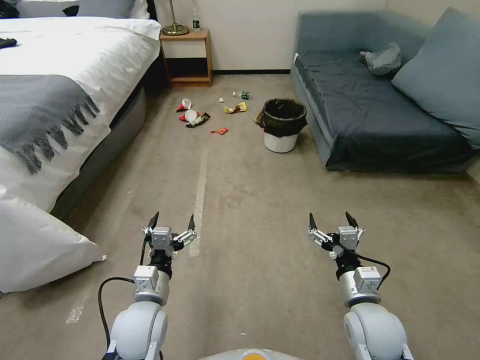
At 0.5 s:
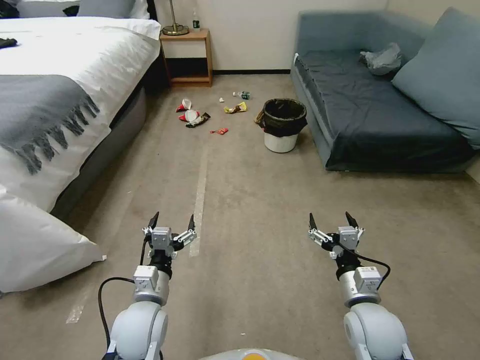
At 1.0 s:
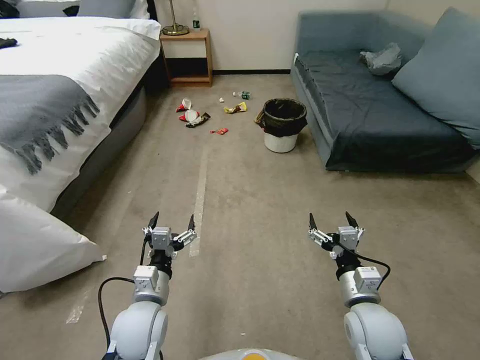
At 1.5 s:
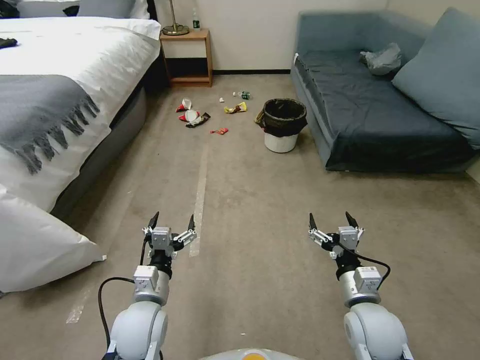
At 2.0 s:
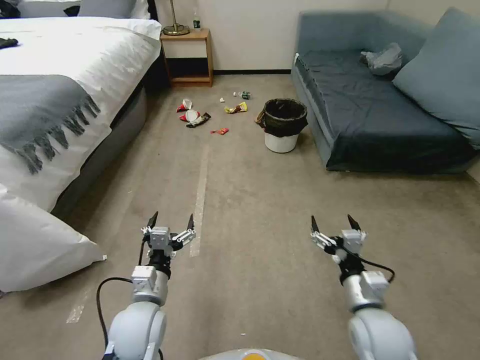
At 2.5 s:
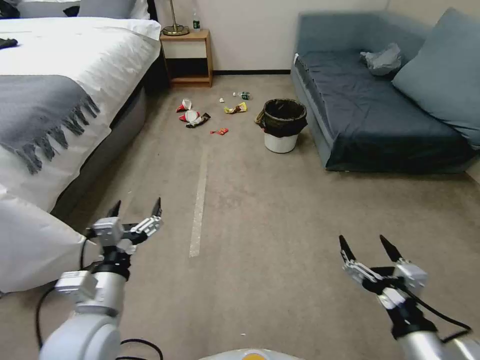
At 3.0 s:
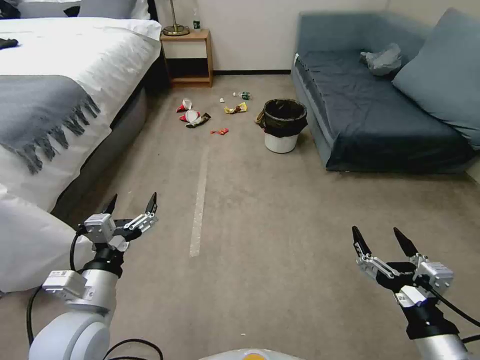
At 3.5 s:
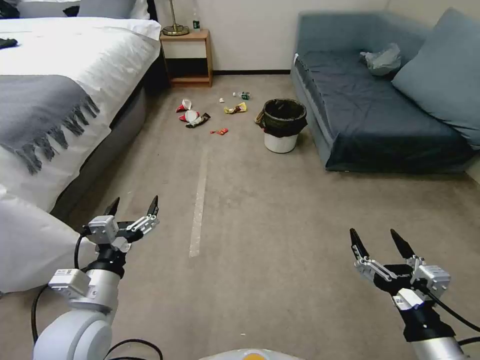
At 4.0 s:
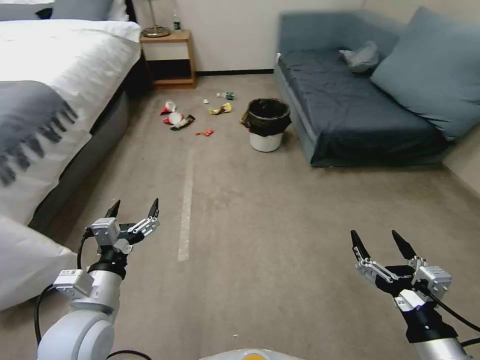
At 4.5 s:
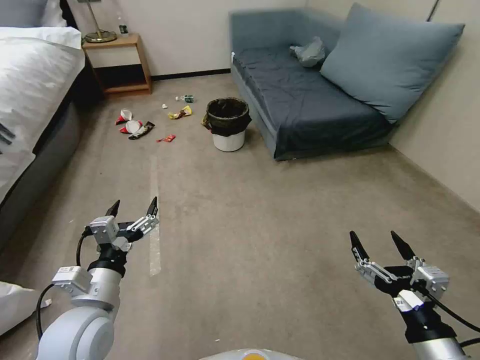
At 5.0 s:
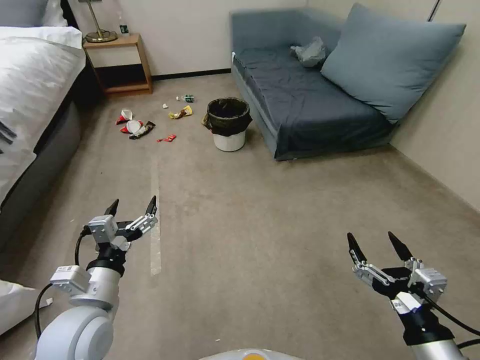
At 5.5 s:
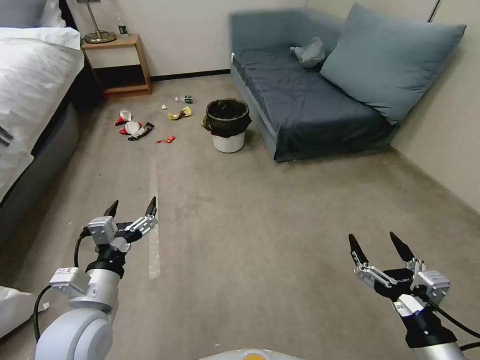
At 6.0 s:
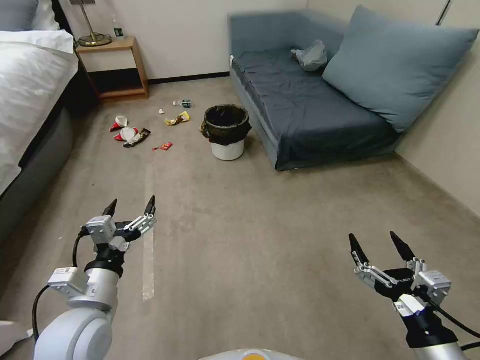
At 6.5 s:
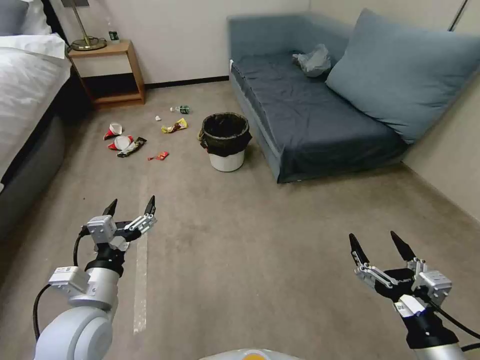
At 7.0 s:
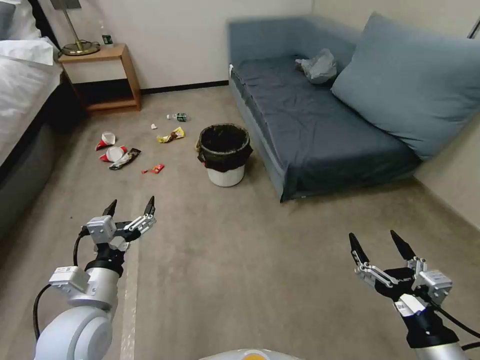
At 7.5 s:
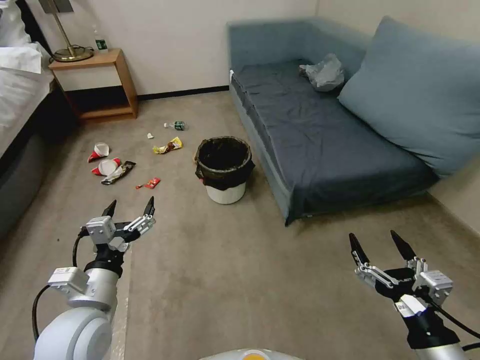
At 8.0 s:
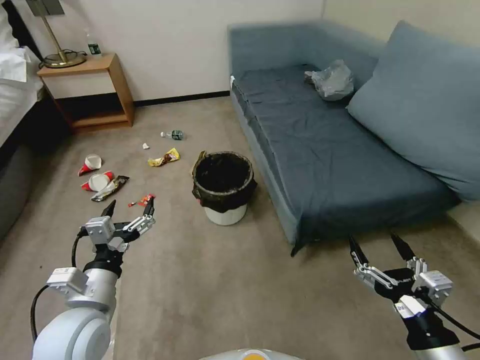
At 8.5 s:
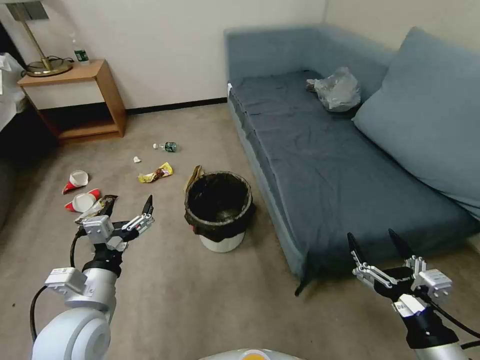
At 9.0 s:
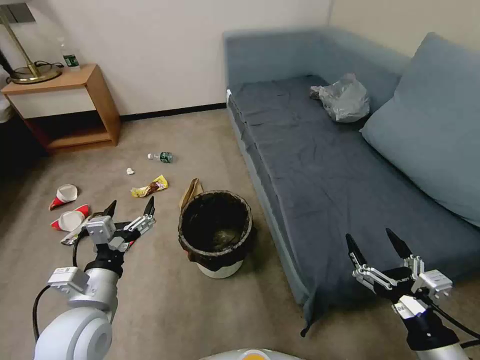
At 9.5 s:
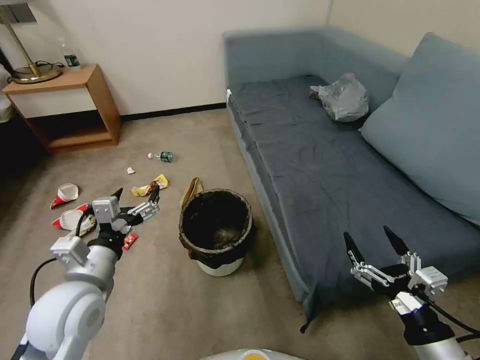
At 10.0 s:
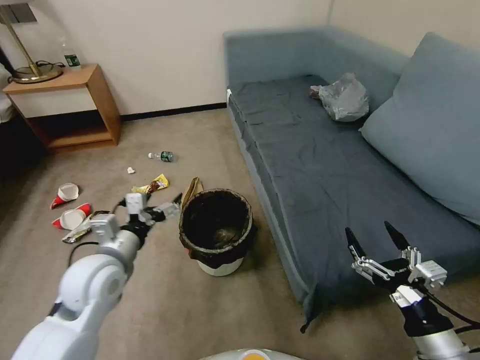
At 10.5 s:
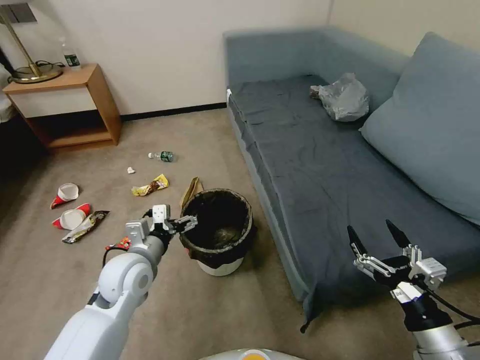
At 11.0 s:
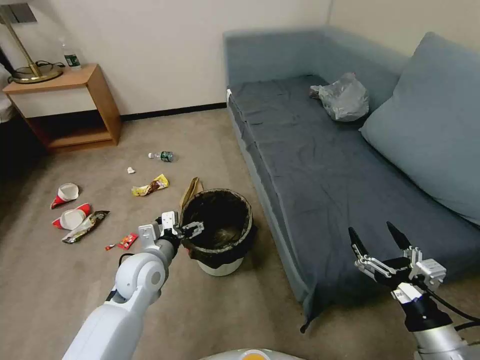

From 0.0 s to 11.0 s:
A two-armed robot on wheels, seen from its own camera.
Task of the whole recording: Pick up the trash can from the floor.
From 2.0 s to 3.5 s: The left gripper is displaced upward and to the left by approximately 10 cm, while the right gripper is displaced backward and upward by about 15 cm.
From 9.0 s to 11.0 s: The left gripper is displaced forward, downward and to the right by approximately 15 cm.

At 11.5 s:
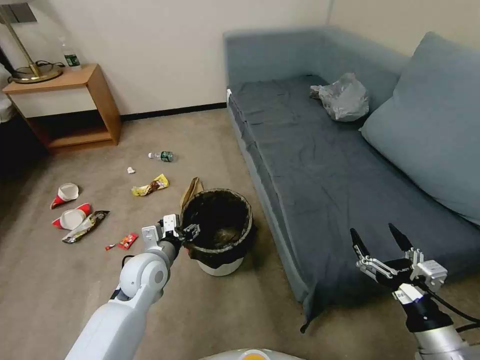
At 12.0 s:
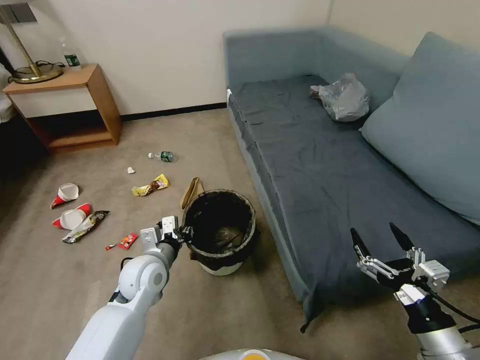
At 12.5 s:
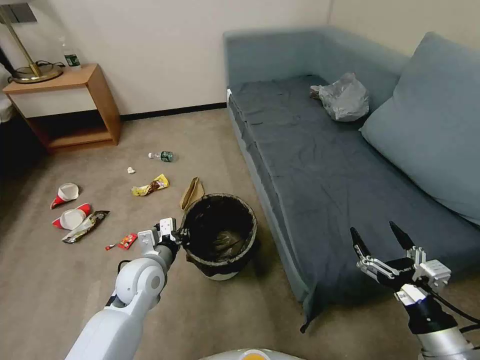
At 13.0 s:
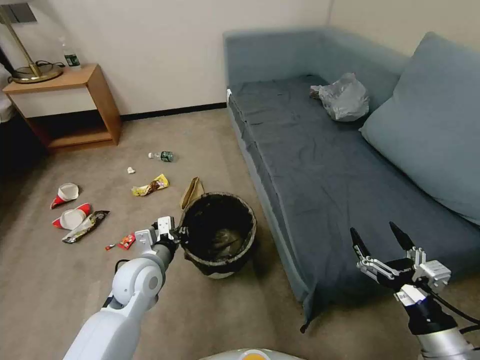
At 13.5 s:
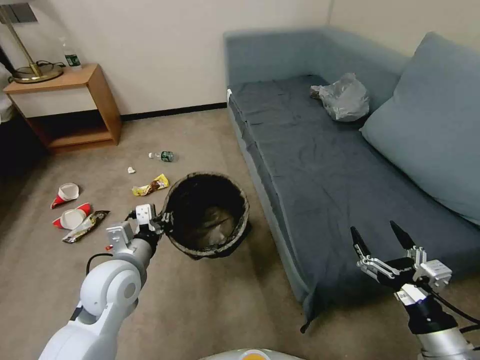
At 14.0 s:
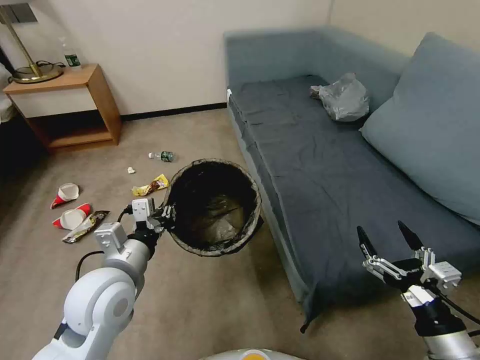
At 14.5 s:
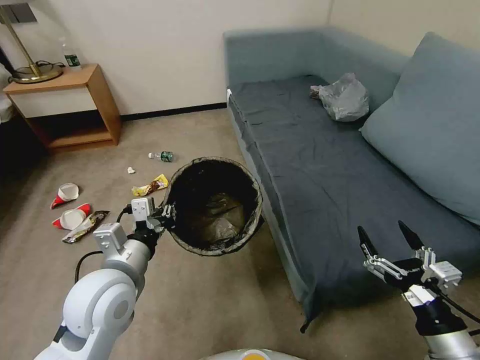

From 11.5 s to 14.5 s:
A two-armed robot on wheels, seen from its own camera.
Task of the whole recording: Pick up the trash can from the floor.
From 11.5 s to 13.0 s: The left gripper closes its fingers.
From 13.0 s to 14.5 s: The left gripper is displaced upward and backward by approximately 15 cm.

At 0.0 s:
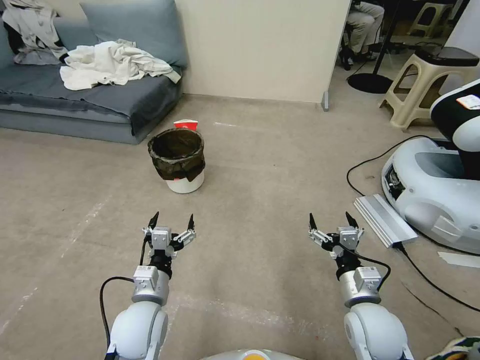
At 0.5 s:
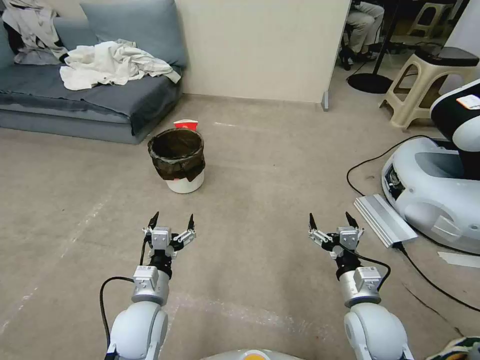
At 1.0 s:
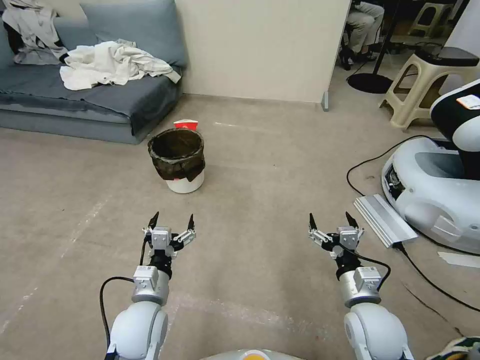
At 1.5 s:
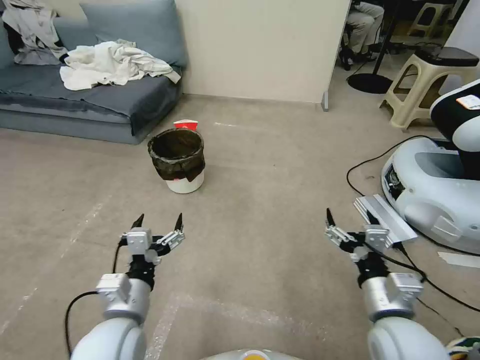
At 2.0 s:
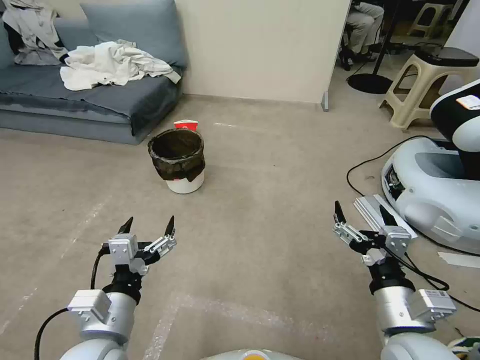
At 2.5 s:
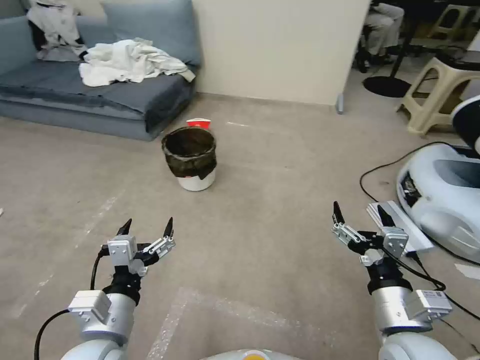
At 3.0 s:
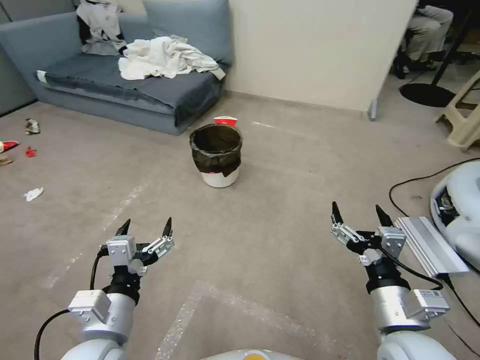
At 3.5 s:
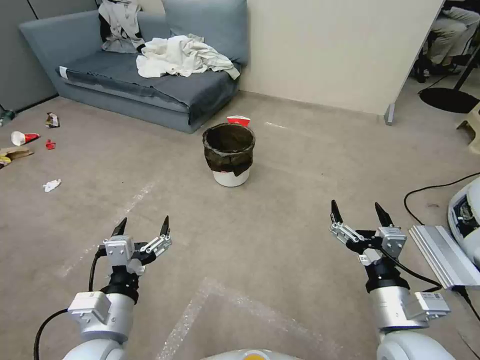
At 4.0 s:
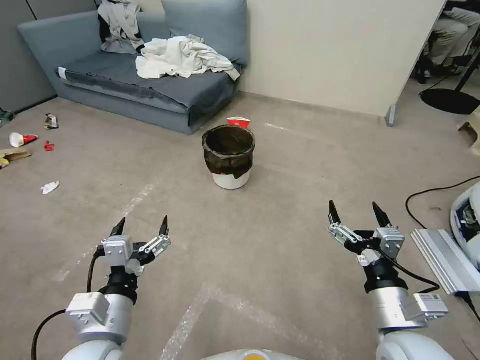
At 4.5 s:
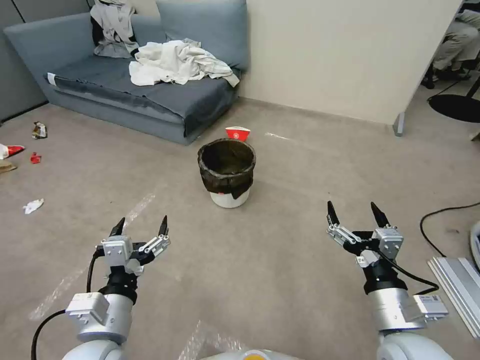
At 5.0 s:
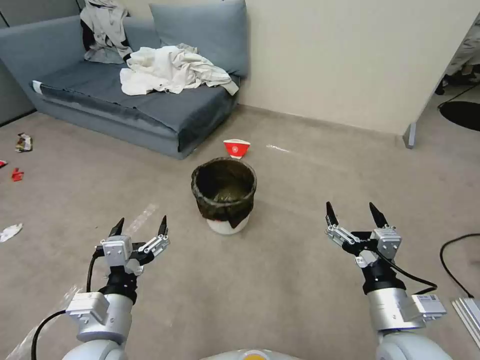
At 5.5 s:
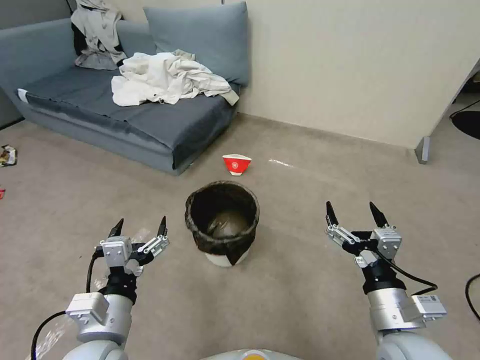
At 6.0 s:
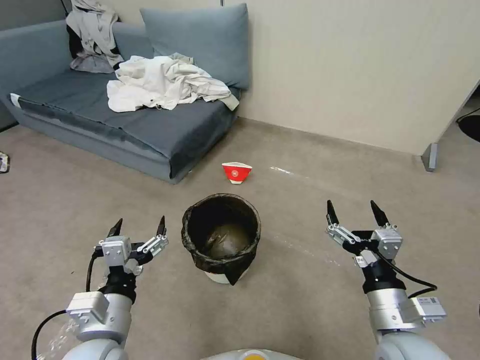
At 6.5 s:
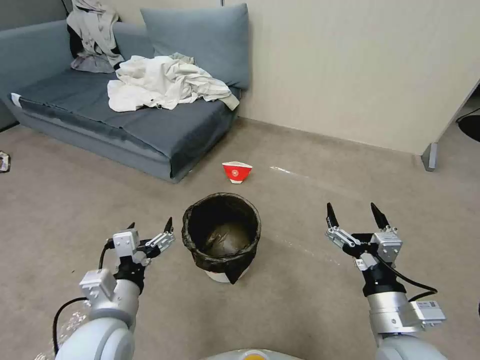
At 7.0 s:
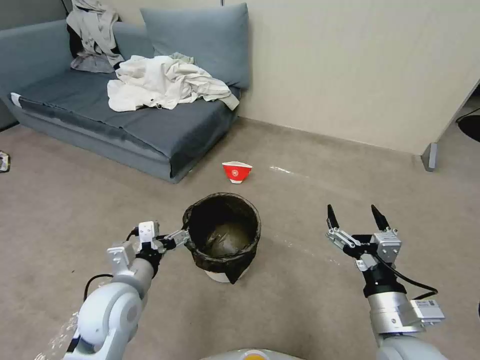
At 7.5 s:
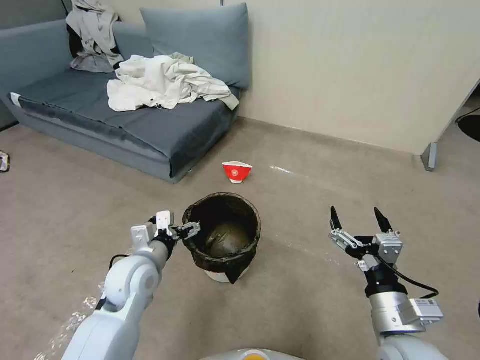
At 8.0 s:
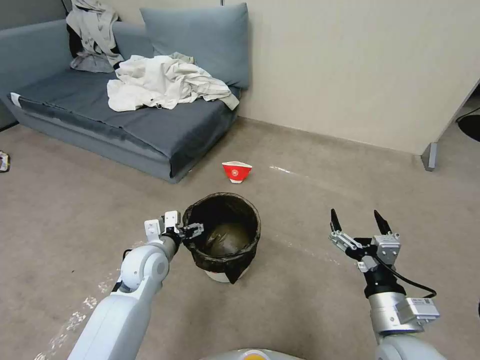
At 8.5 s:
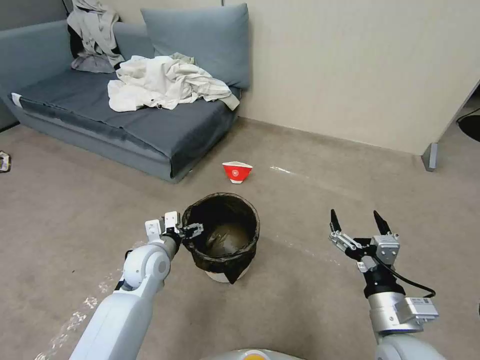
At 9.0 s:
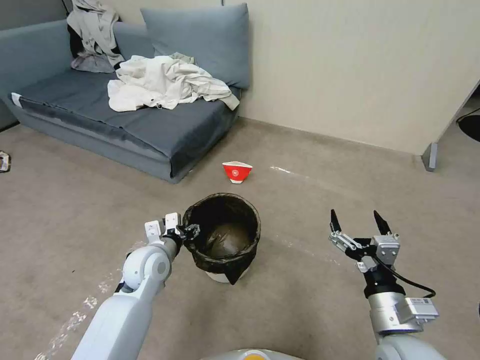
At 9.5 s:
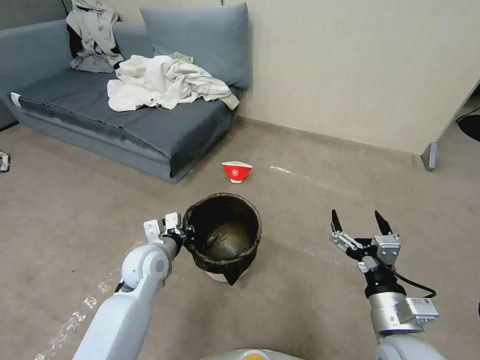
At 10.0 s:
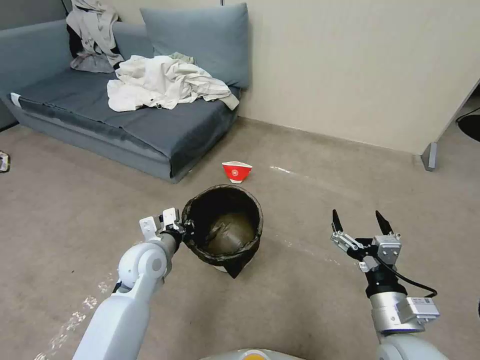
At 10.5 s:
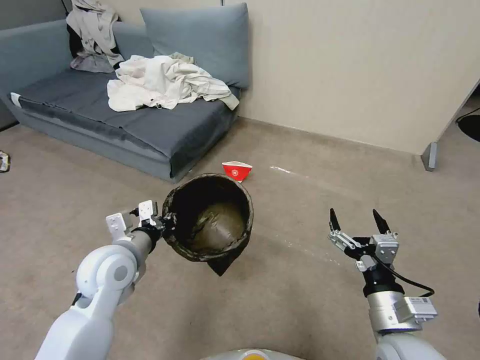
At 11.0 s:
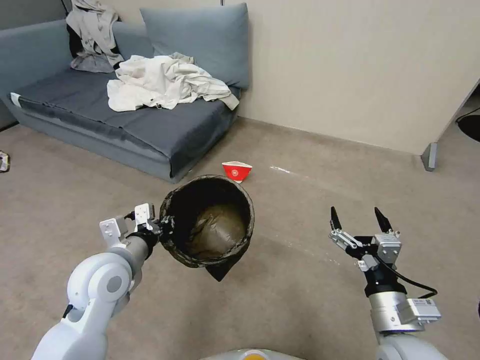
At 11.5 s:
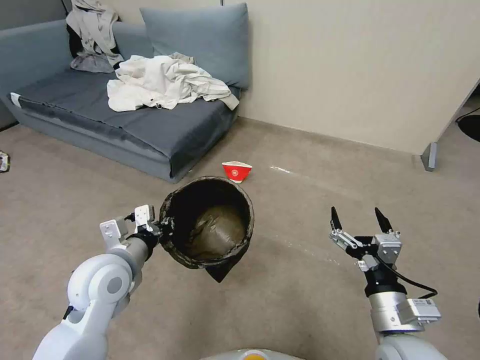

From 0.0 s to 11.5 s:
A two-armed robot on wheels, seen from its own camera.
Task of the whole recording: Pick up the trash can from the floor.
From 6.0 s to 7.5 s: The left gripper shifts roughly 15 cm forward.
From 7.5 s to 9.5 s: The left gripper moves about 5 cm, and closes its fingers.
From 9.5 s to 11.5 s: The left gripper goes some 10 cm upward and backward.
